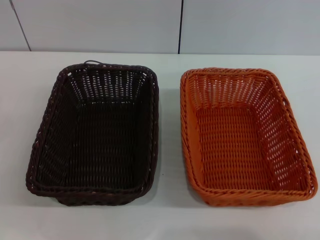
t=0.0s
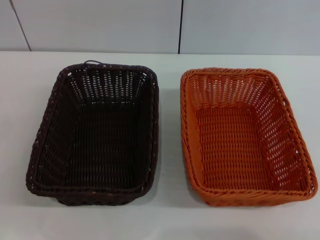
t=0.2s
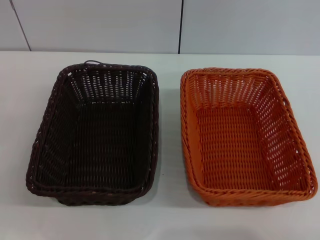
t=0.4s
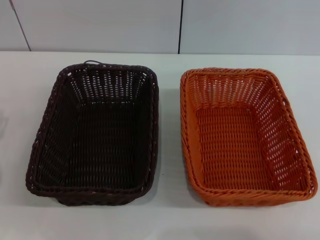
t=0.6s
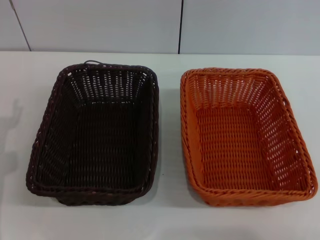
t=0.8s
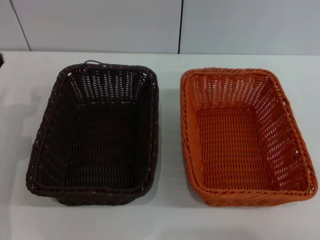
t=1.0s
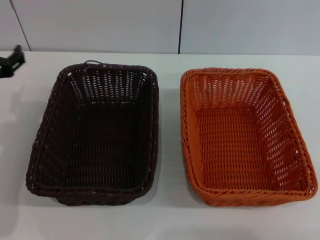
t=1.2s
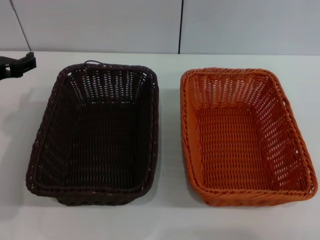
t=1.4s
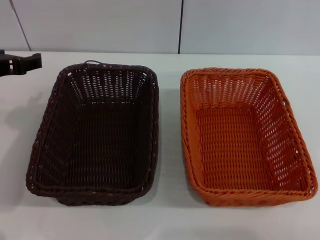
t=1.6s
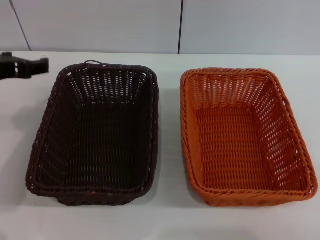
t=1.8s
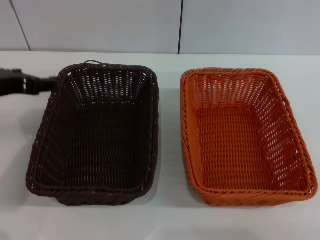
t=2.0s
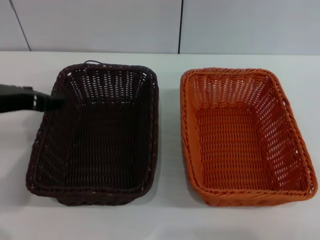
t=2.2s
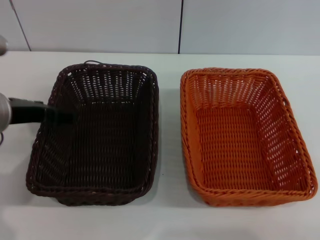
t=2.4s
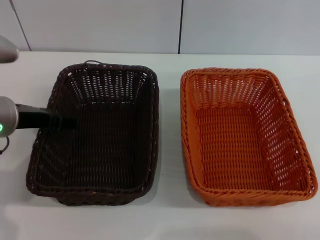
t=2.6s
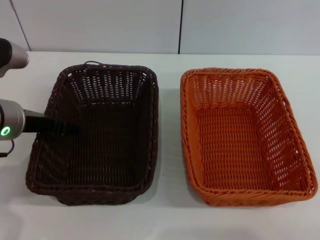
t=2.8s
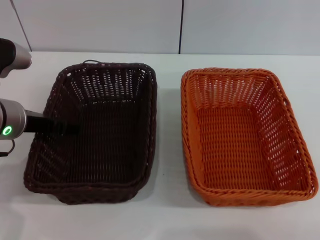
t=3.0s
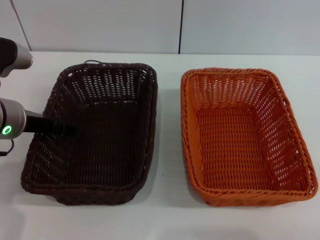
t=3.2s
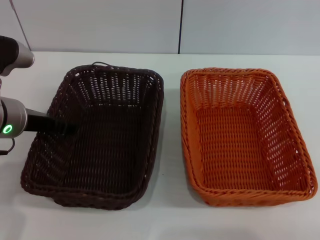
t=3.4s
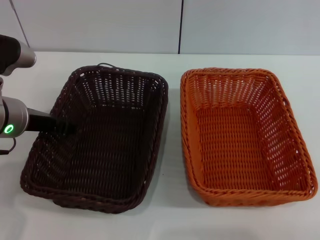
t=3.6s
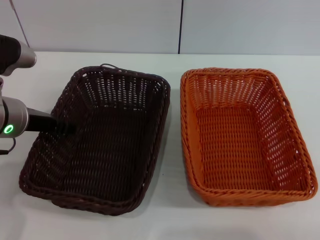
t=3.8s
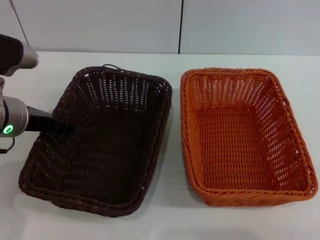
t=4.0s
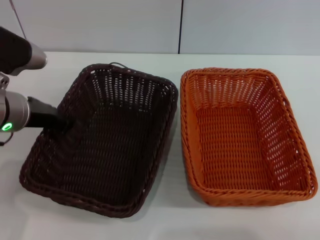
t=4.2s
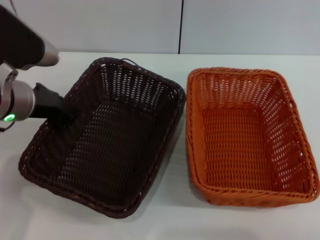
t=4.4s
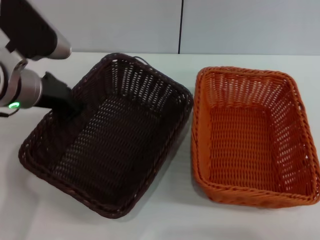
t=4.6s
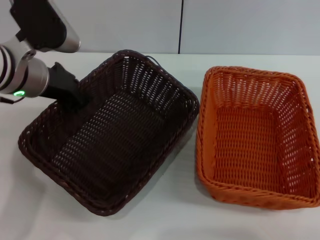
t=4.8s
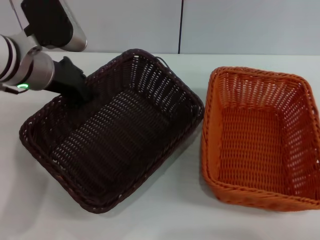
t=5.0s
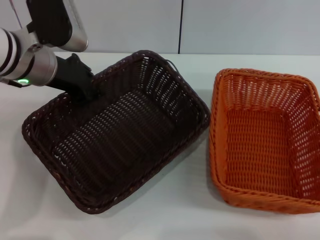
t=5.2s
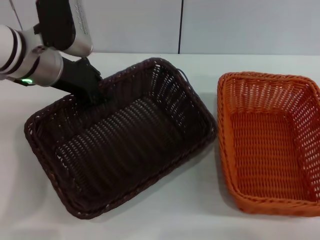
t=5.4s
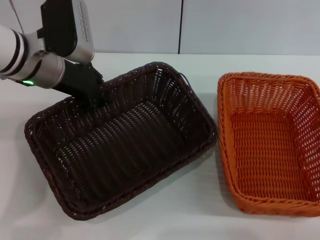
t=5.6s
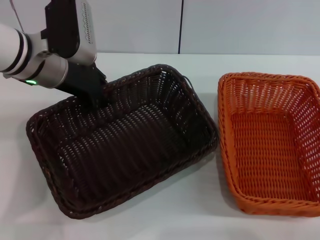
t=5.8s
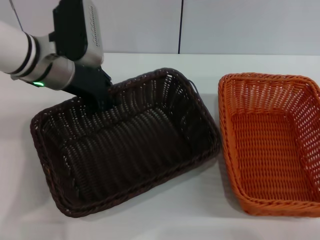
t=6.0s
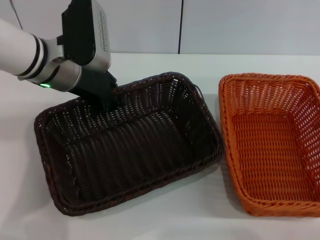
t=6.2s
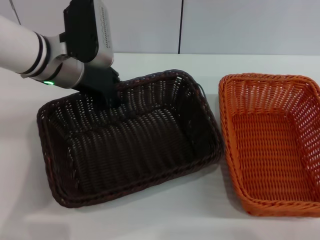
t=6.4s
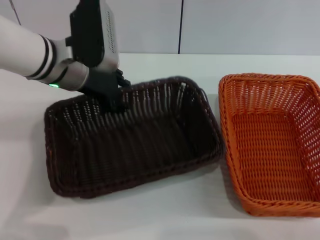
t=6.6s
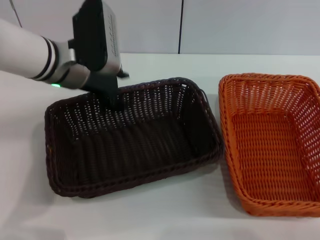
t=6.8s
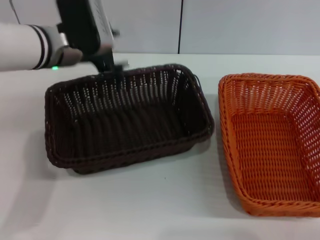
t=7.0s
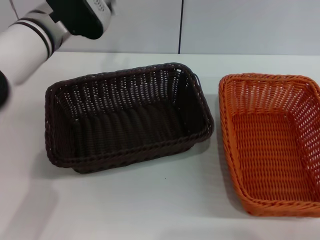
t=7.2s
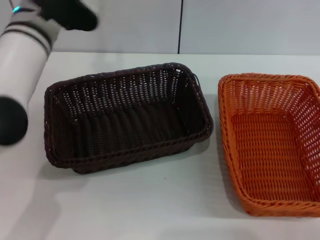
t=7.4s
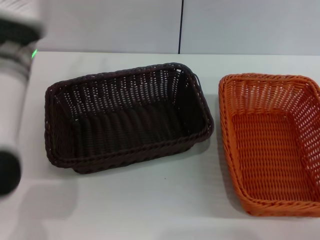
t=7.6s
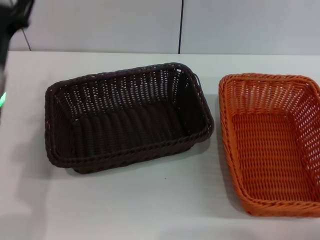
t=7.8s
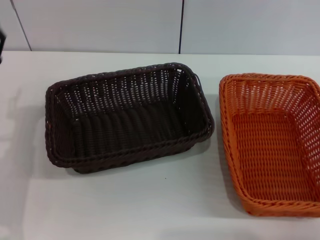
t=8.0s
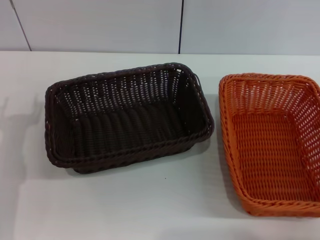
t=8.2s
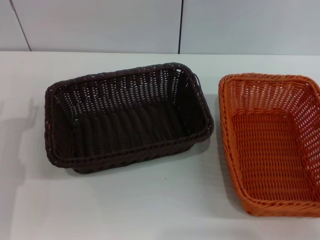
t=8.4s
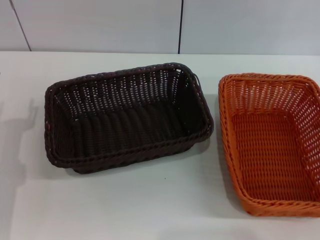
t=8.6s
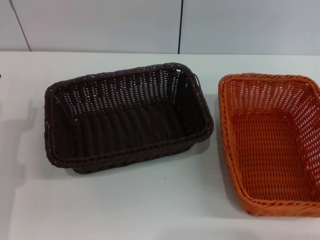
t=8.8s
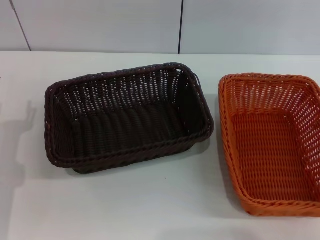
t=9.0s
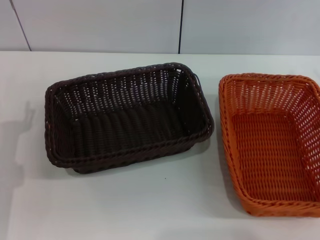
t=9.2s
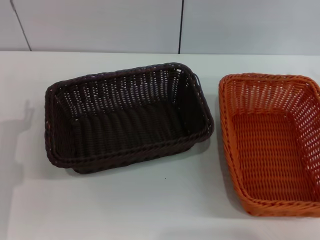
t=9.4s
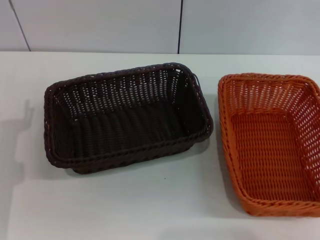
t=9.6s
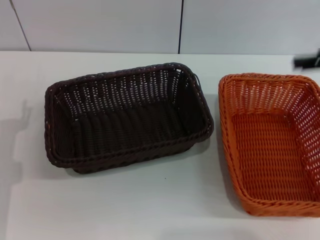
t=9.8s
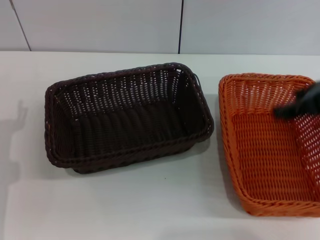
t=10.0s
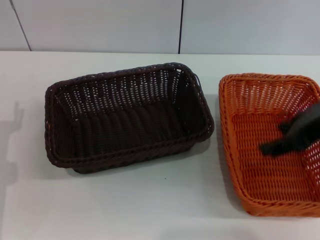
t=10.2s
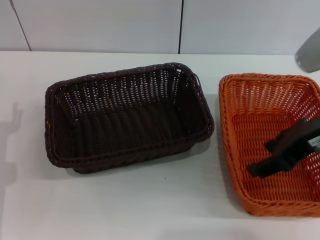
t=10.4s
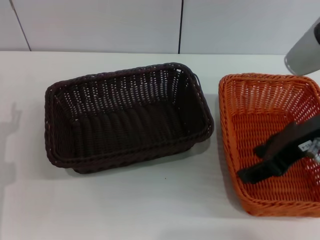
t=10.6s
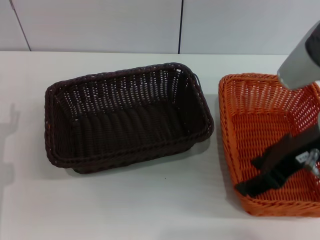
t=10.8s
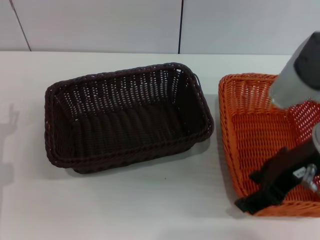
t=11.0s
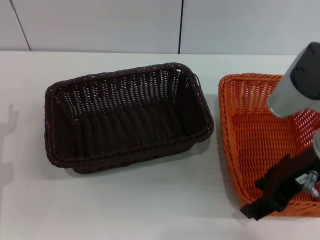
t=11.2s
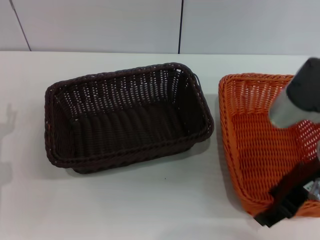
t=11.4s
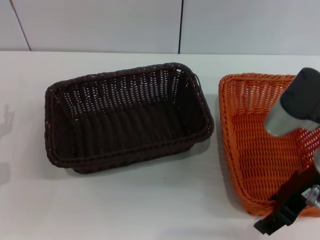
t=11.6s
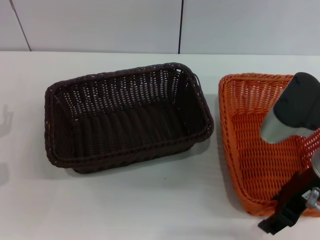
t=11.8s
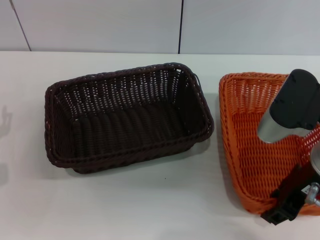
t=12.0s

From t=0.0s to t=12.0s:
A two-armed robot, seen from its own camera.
Step, from t=0.0s to t=4.8s: Pick up the dark basket with the left gripper.
Step, from t=5.0s to t=7.0s: Place the dark basket in the center of view with the left gripper.
From t=0.0s to t=1.6s: The left gripper travels upward and to the right by approximately 20 cm.
From t=1.6s to t=3.0s: The left gripper goes about 5 cm downward.
From t=3.0s to t=4.4s: The left gripper closes.
From t=4.4s to t=6.0s: The left gripper moves forward, about 5 cm.
From t=6.0s to t=7.6s: The left gripper opens its fingers.
From t=7.6s to t=9.0s: The left gripper is displaced downward, to the left and backward by approximately 20 cm.
From t=9.0s to t=10.4s: The right gripper travels to the left and upward by about 15 cm.
From t=10.4s to t=12.0s: The right gripper moves downward, some 5 cm.

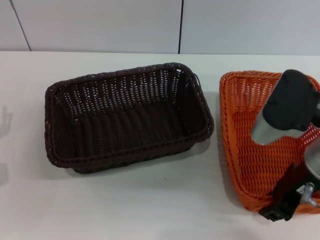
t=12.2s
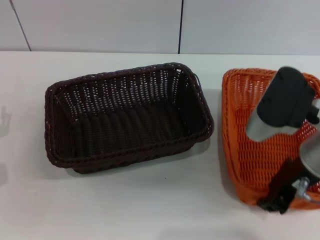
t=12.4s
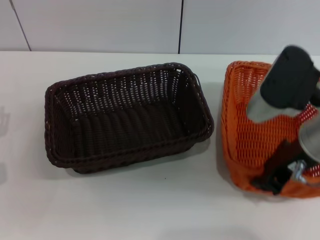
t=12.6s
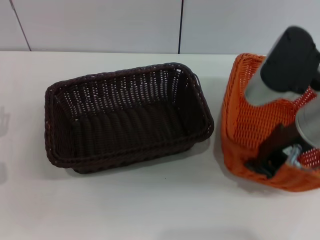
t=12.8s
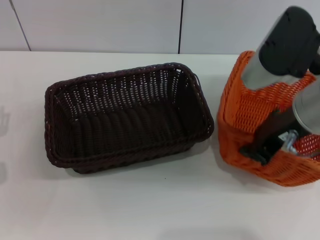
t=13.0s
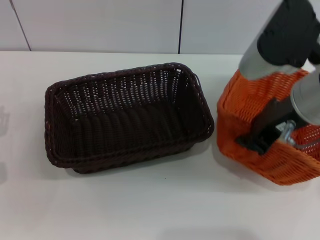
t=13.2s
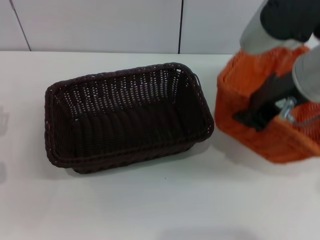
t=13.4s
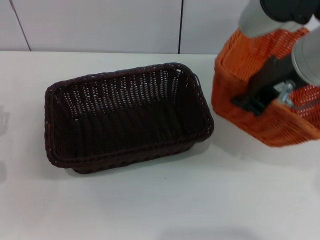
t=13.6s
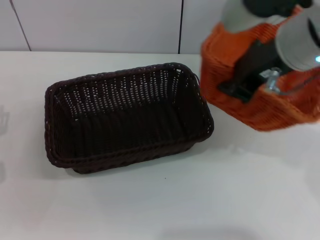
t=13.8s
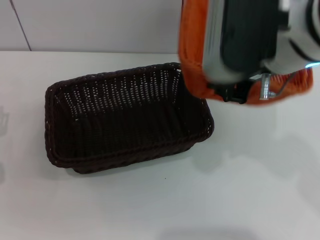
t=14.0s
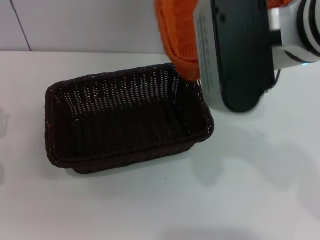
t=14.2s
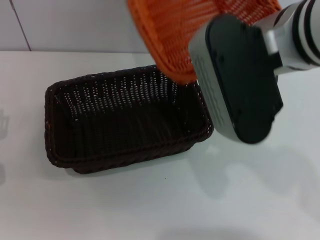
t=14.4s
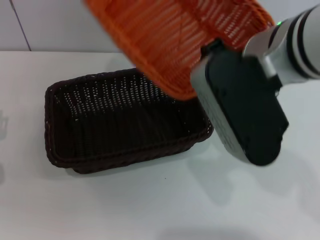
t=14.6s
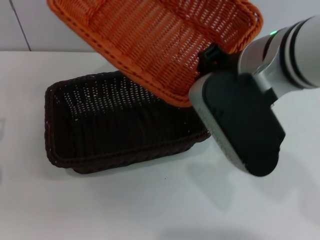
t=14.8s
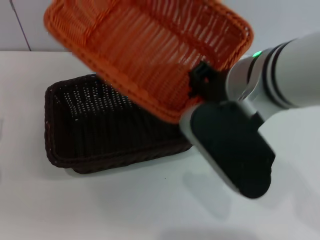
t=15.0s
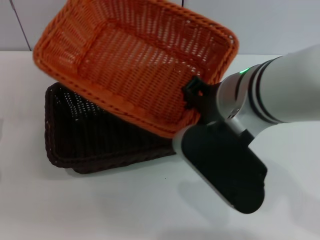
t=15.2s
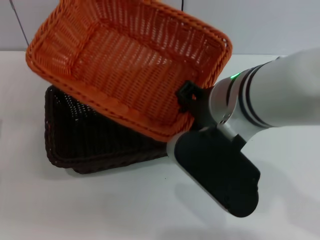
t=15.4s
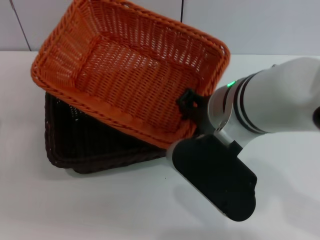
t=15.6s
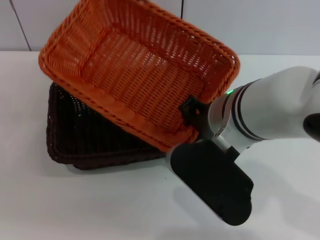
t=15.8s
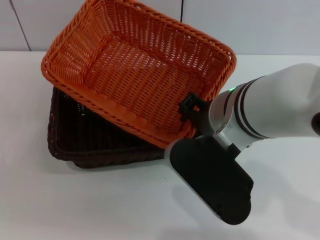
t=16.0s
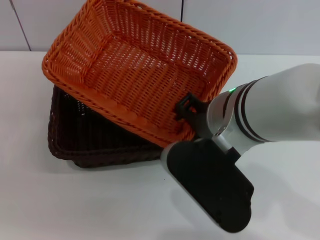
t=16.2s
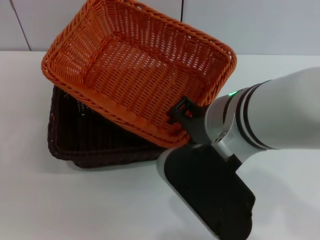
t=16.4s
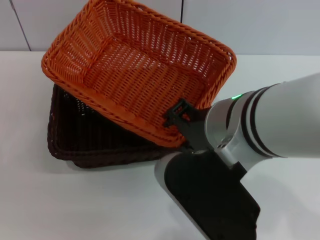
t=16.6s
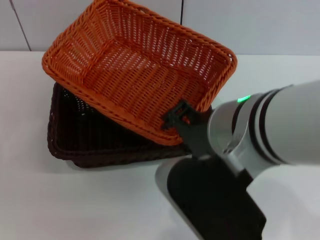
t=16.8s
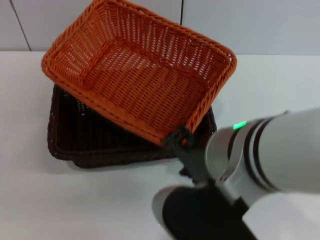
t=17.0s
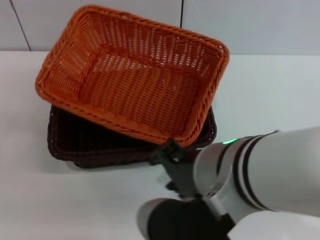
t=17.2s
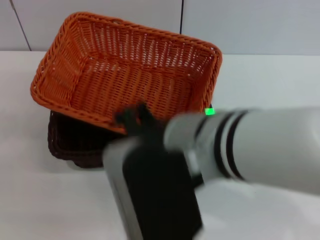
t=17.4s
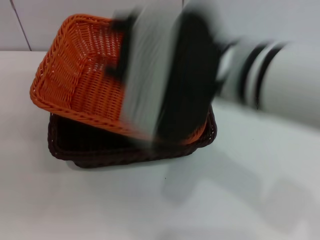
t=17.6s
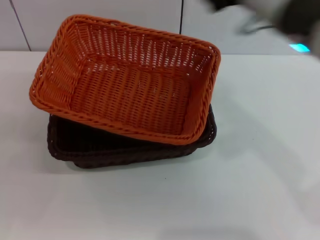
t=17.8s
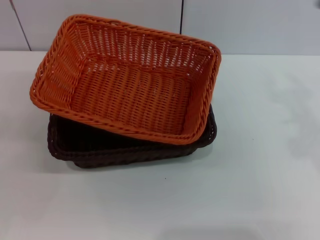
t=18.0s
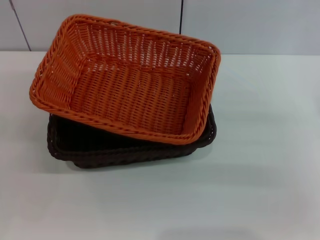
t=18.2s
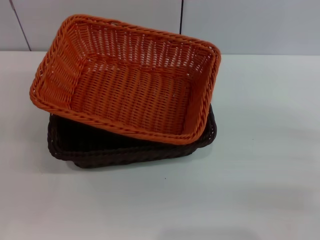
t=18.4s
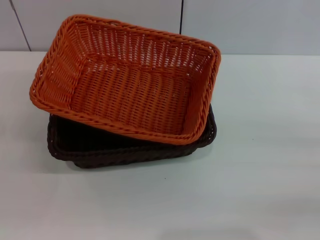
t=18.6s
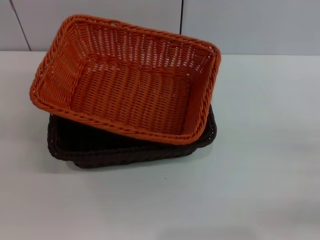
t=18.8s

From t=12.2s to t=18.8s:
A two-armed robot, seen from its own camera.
Step, from t=12.8s to t=17.4s: Place the light basket on the dark basket with the right gripper.
From t=12.2s to t=13.8s: The right gripper travels upward by roughly 10 cm, and closes its fingers.
From t=13.8s to t=15.4s: The right gripper moves to the left and downward, approximately 10 cm.
From t=15.4s to t=17.2s: The right gripper shifts roughly 10 cm backward, and opens its fingers.
From t=17.2s to t=18.8s: The right gripper shifts roughly 35 cm to the right and downward.

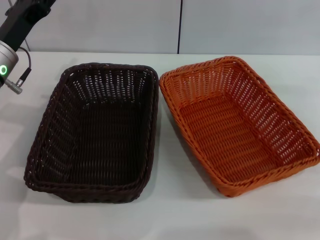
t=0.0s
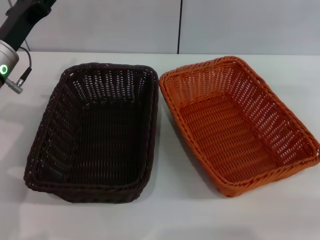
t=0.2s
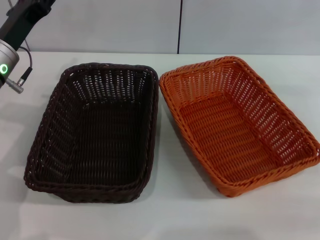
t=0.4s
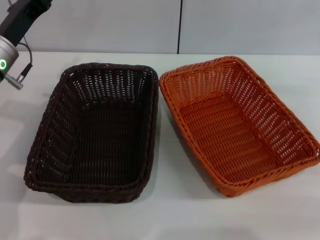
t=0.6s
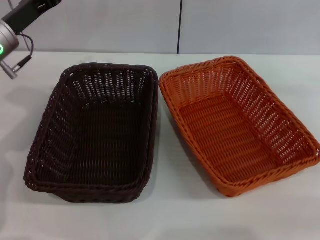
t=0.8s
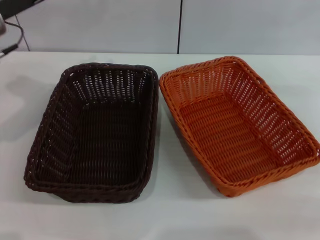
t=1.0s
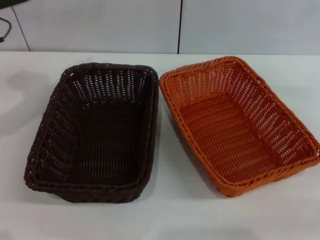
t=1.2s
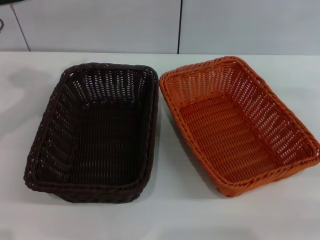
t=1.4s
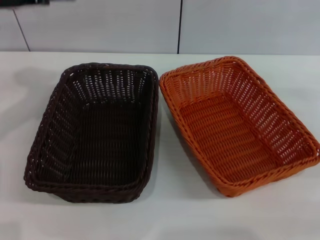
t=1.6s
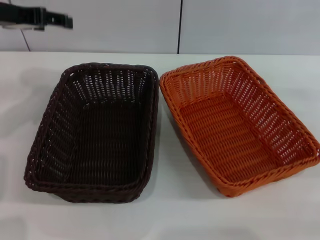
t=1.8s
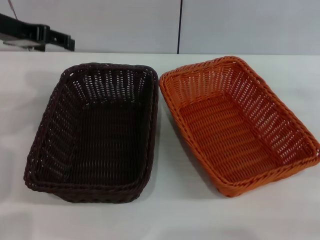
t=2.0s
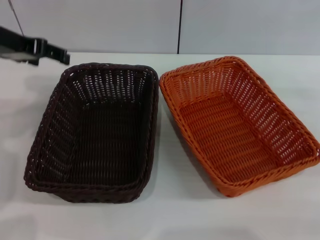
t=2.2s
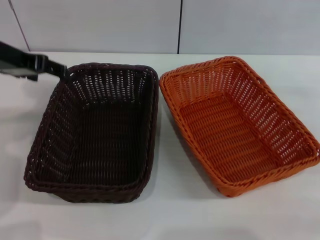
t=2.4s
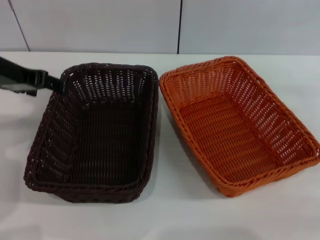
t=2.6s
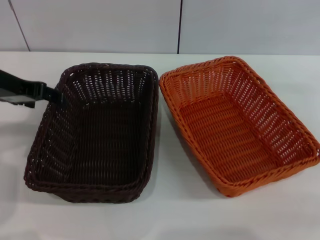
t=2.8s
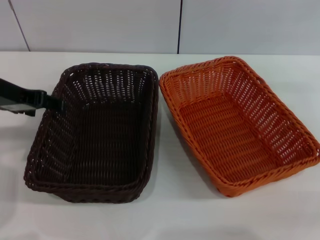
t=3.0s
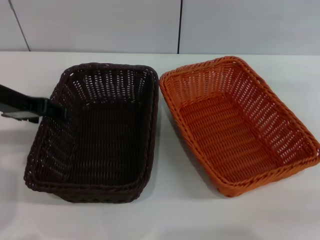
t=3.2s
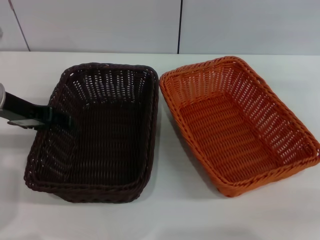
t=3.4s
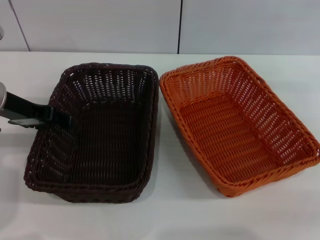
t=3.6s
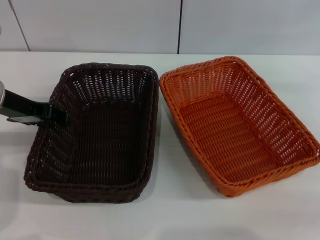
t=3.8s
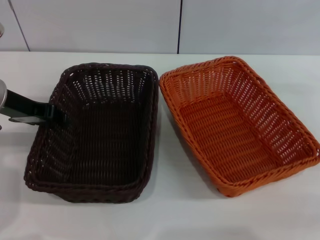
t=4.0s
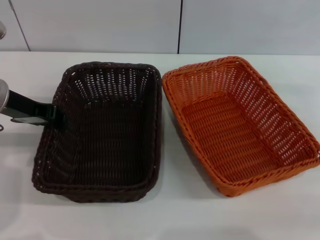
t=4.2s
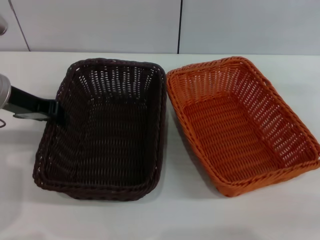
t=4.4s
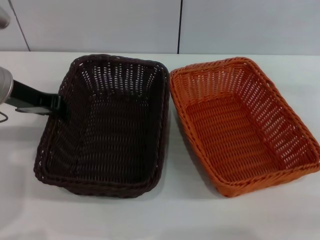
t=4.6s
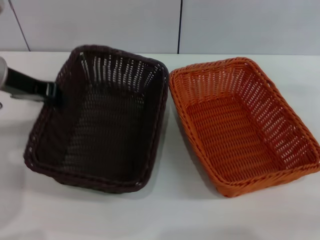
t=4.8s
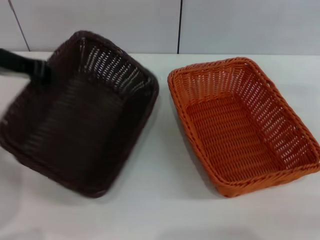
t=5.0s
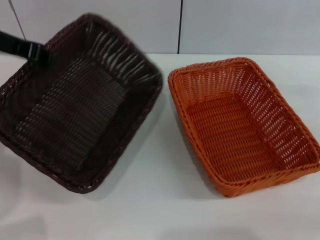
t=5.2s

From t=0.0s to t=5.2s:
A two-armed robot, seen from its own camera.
Step, from t=0.0s to t=4.8s: Pick up the dark basket with the left gripper.
From t=0.0s to t=1.8s: The left gripper goes some 10 cm upward.
From t=1.8s to t=3.4s: The left gripper heads downward, covering approximately 10 cm.
From t=3.4s to t=5.2s: The left gripper travels upward by about 10 cm, and closes up.
